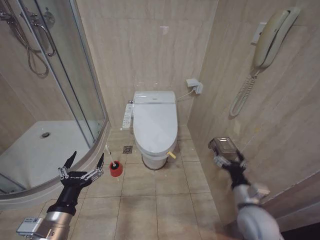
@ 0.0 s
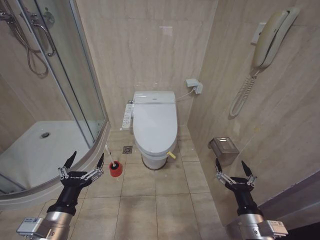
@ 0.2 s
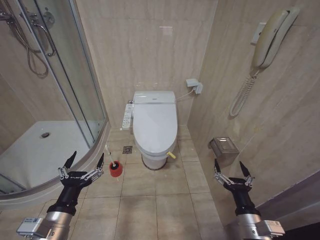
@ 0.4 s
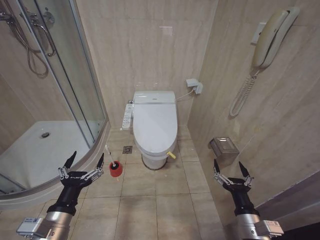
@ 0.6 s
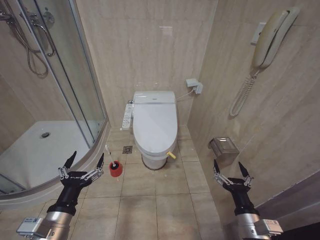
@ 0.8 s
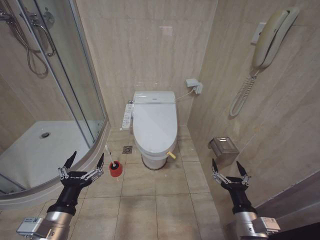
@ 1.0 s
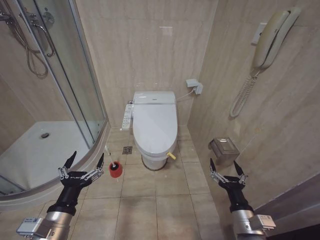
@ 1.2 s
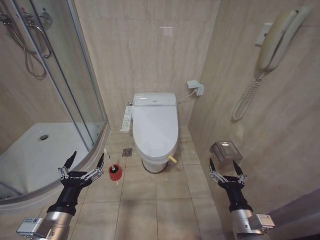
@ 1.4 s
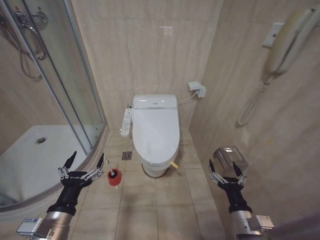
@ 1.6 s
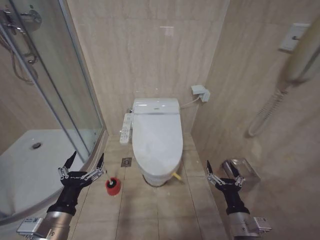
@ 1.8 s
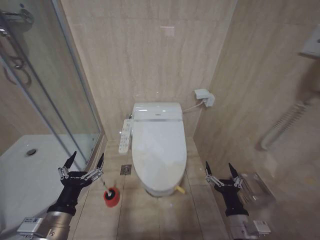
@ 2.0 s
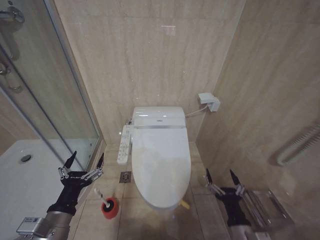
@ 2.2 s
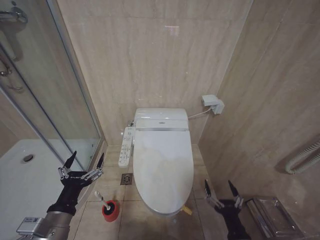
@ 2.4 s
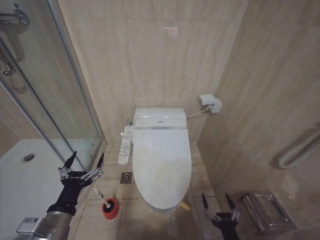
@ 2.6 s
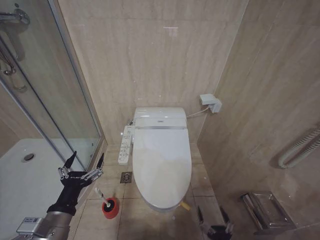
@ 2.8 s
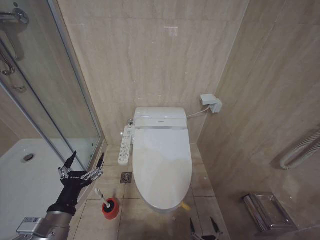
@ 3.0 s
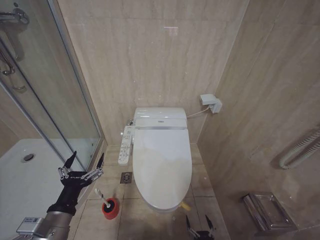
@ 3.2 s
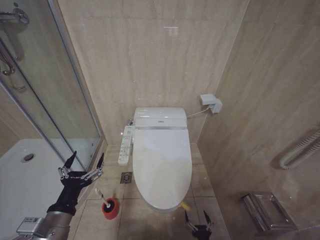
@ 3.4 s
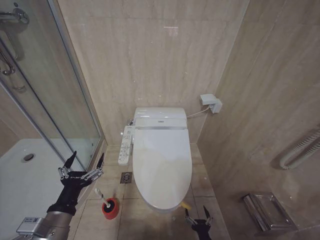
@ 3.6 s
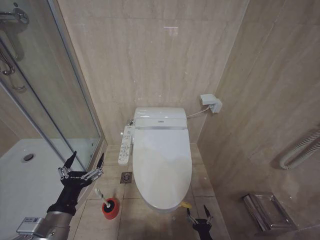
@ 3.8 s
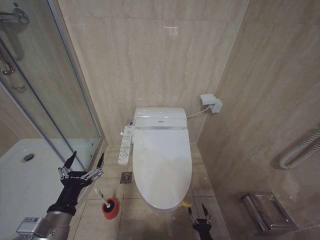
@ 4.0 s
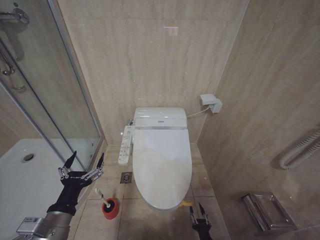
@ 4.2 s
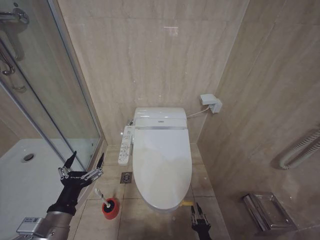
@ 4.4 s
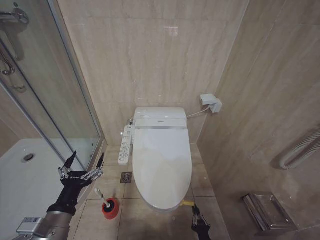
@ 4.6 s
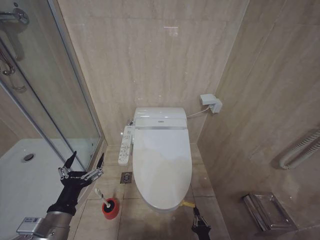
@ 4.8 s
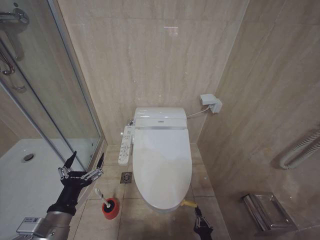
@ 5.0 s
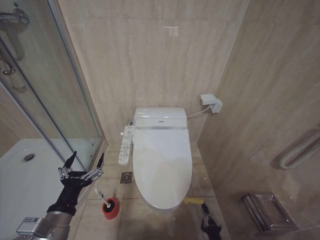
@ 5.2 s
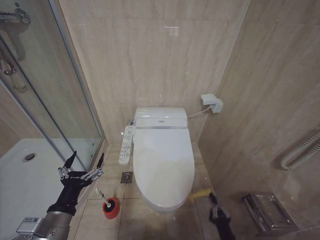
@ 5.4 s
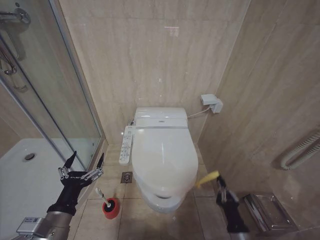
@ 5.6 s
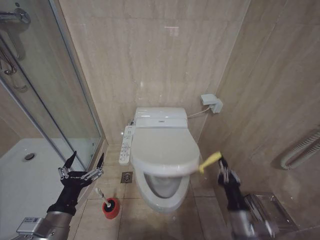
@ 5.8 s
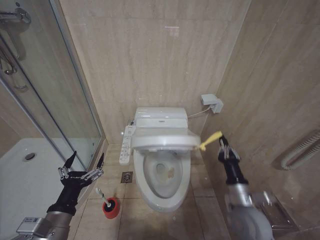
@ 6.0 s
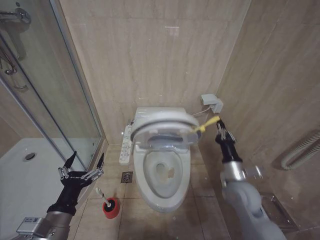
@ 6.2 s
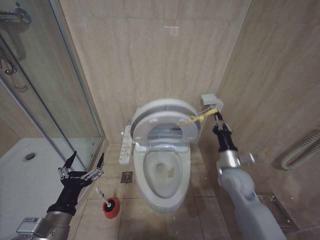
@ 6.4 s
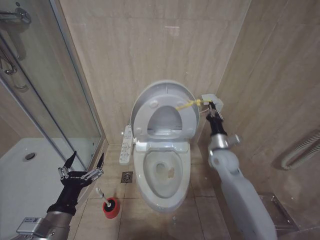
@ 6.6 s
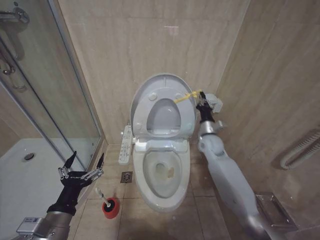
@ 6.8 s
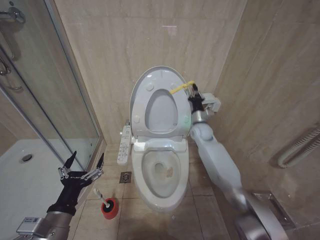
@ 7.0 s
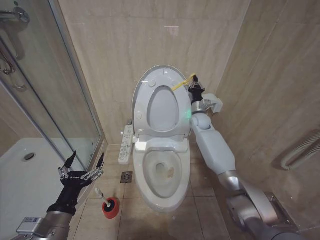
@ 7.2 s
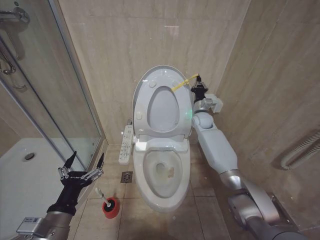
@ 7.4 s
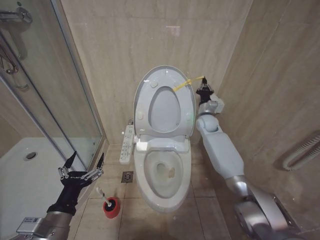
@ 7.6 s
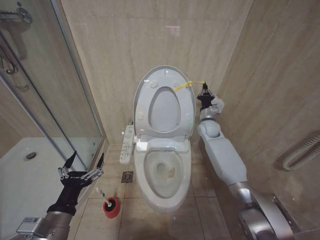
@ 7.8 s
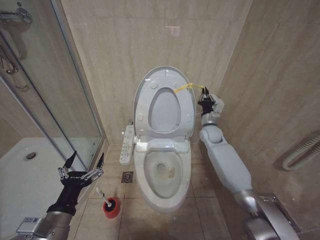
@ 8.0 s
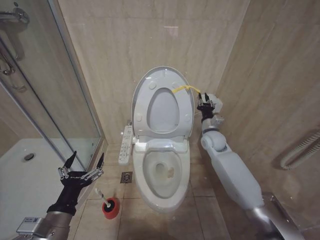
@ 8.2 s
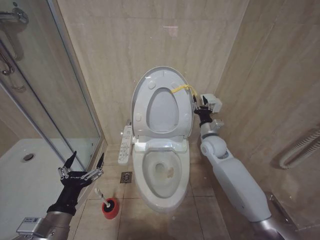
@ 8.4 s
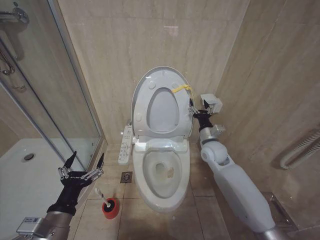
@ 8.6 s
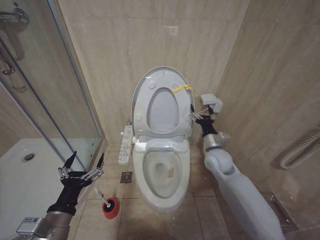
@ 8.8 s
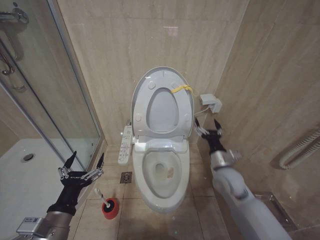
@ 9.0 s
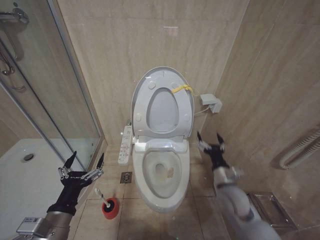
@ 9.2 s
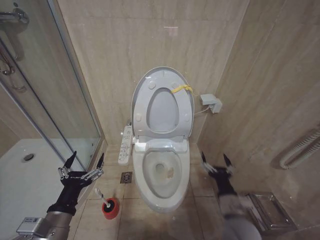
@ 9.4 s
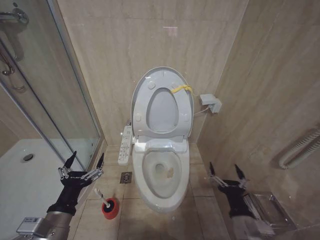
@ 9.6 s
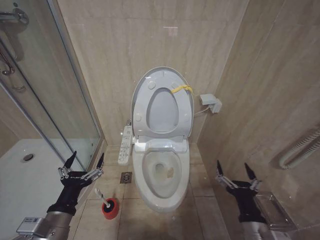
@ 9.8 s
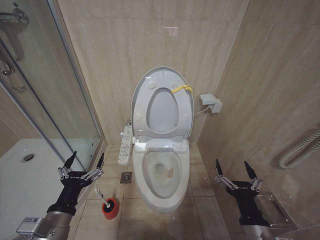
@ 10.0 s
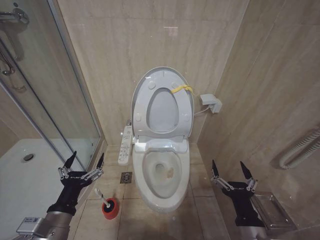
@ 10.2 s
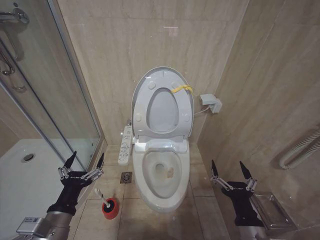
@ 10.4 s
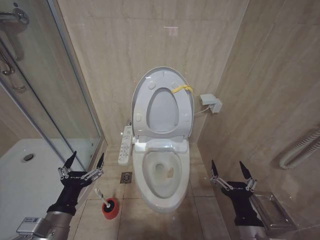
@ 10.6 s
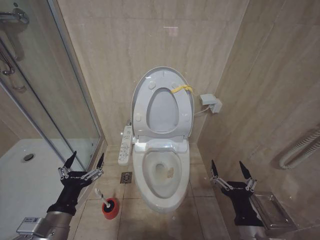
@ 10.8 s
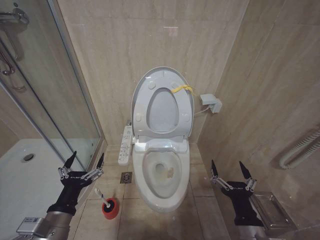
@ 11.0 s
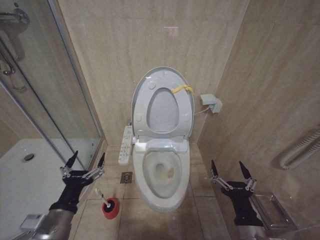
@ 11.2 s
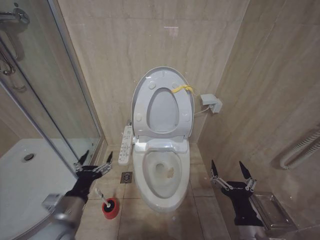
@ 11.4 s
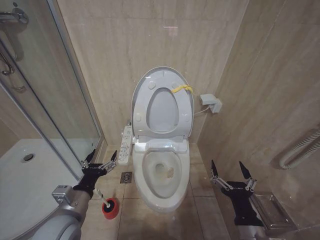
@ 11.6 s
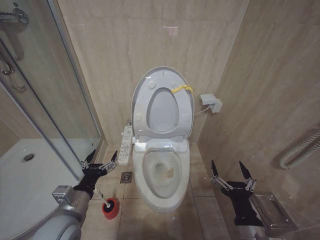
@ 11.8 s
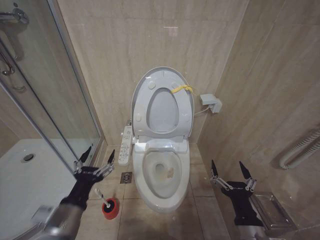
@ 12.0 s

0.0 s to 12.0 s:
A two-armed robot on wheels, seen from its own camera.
Task of the whole recording: Open the toilet lid, clean the toilet bowl with a toilet brush, close the toilet lid, and flush.
1.6 to 3.0 s: The right gripper is displaced downward and backward by some 20 cm.
4.4 to 6.0 s: The right gripper shifts approximately 25 cm upward, and closes its fingers.
6.0 to 7.6 s: The right gripper goes roughly 35 cm forward.
7.6 to 9.0 s: The right gripper moves backward, approximately 20 cm, and opens.
9.0 to 10.4 s: The right gripper heads backward, covering roughly 25 cm.
10.4 to 12.0 s: The grippers make only small movements.

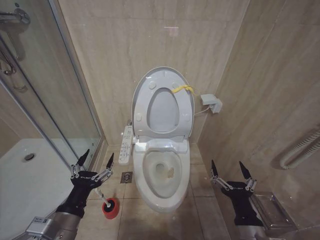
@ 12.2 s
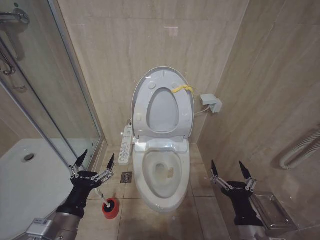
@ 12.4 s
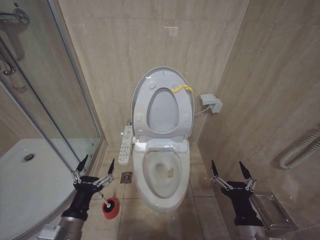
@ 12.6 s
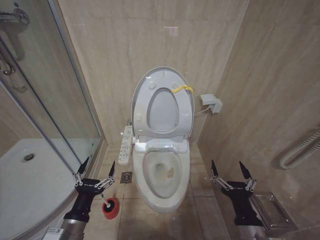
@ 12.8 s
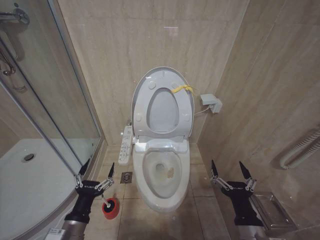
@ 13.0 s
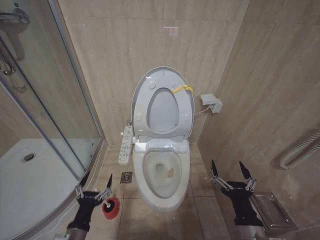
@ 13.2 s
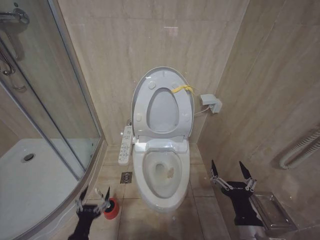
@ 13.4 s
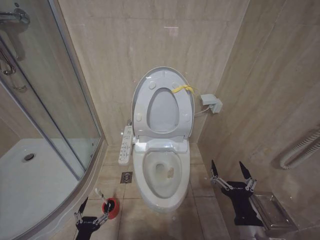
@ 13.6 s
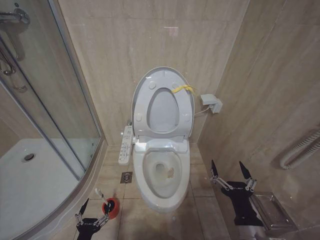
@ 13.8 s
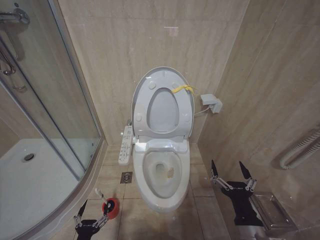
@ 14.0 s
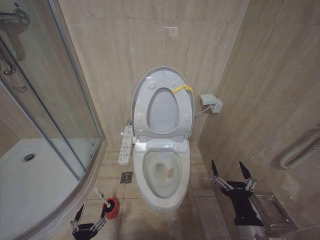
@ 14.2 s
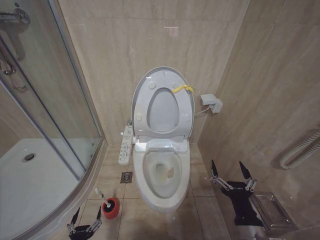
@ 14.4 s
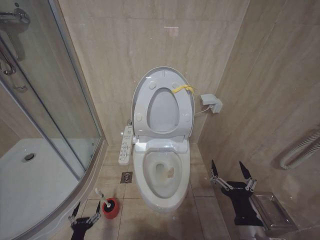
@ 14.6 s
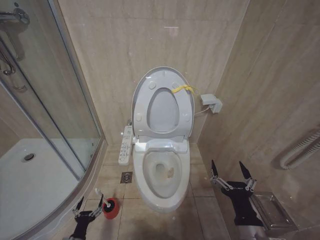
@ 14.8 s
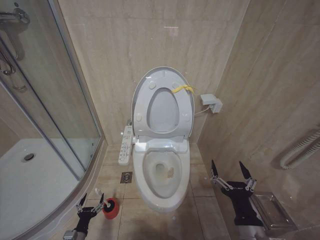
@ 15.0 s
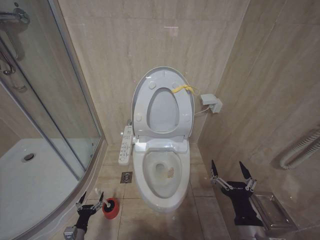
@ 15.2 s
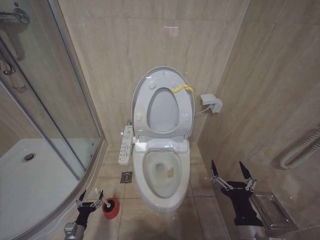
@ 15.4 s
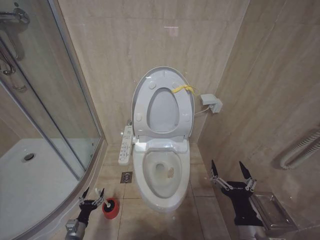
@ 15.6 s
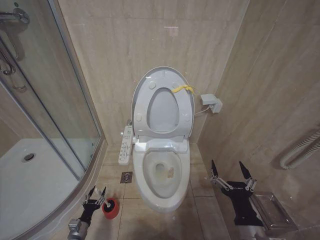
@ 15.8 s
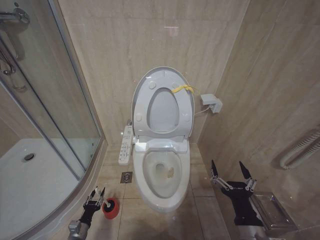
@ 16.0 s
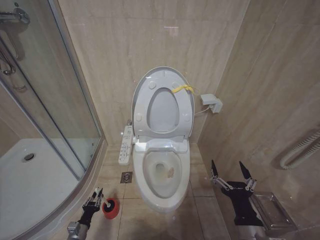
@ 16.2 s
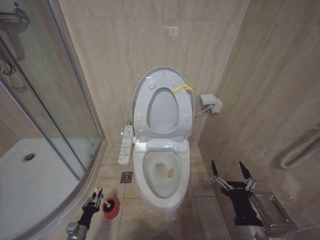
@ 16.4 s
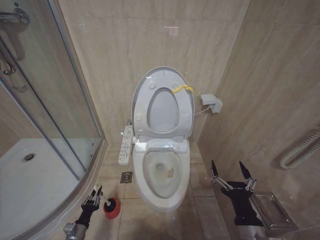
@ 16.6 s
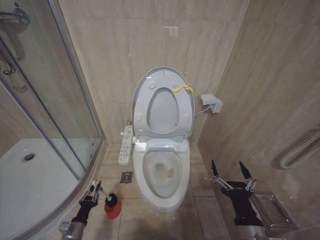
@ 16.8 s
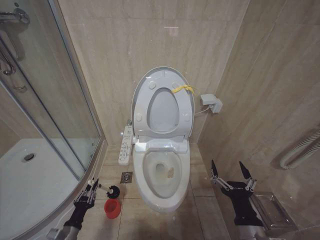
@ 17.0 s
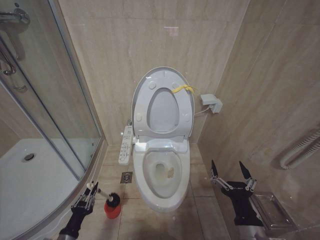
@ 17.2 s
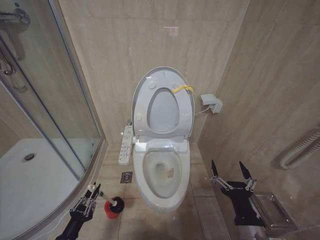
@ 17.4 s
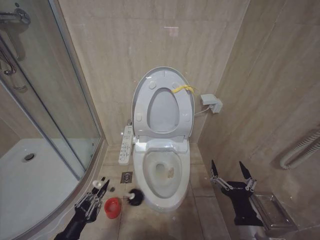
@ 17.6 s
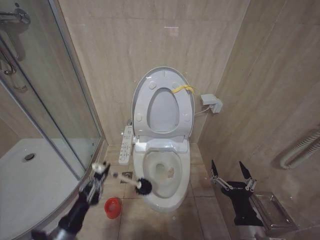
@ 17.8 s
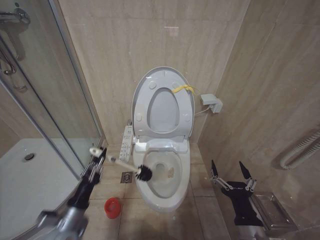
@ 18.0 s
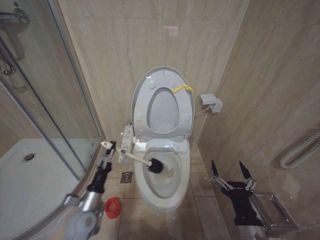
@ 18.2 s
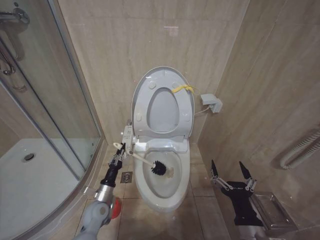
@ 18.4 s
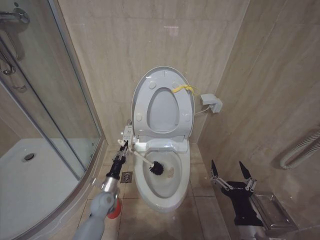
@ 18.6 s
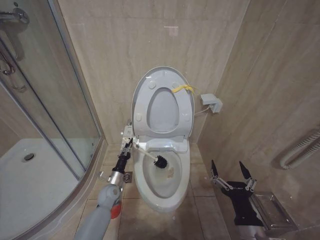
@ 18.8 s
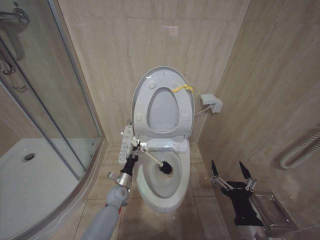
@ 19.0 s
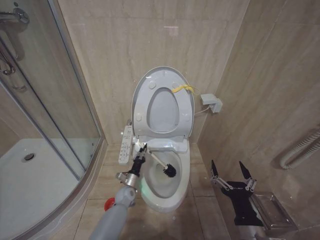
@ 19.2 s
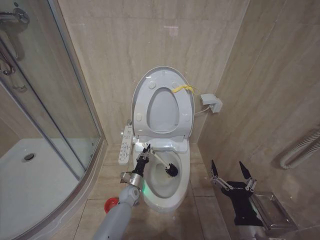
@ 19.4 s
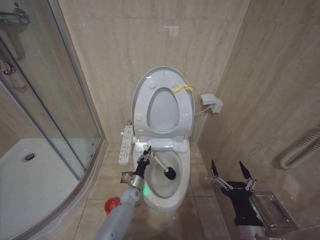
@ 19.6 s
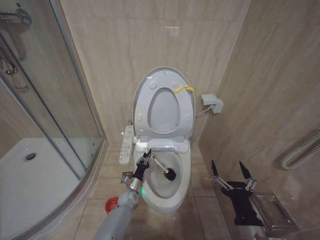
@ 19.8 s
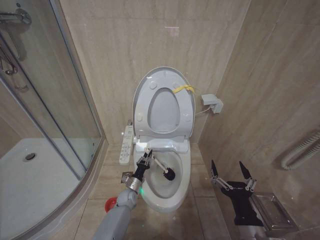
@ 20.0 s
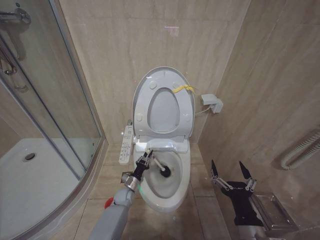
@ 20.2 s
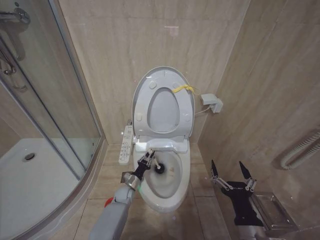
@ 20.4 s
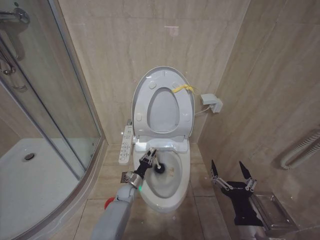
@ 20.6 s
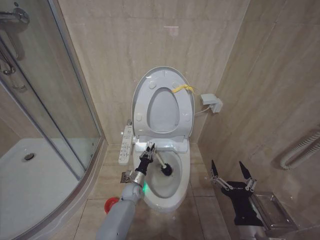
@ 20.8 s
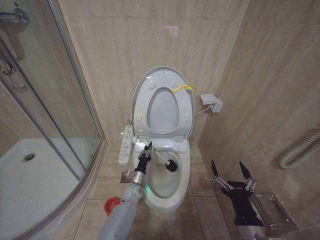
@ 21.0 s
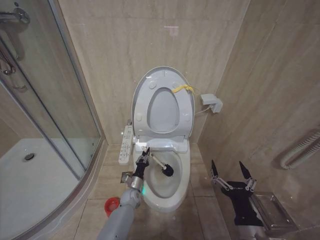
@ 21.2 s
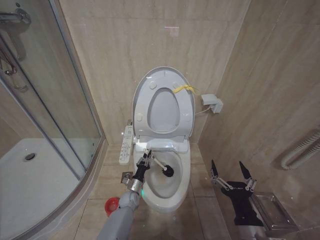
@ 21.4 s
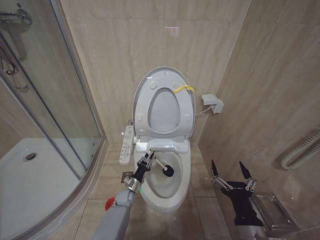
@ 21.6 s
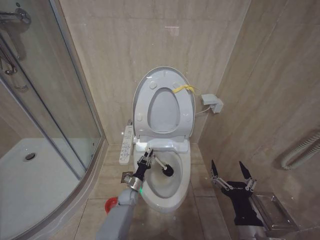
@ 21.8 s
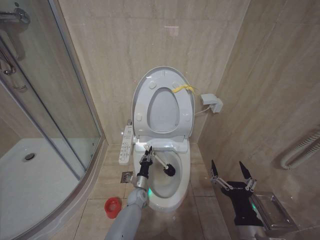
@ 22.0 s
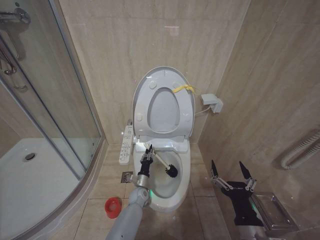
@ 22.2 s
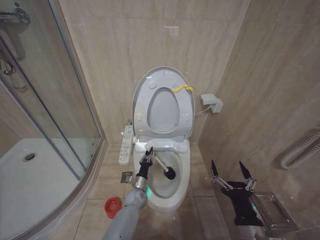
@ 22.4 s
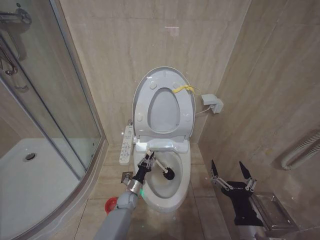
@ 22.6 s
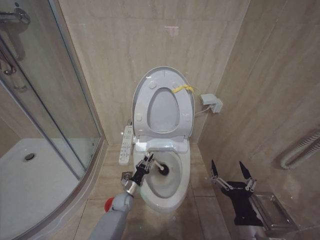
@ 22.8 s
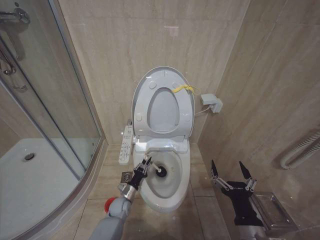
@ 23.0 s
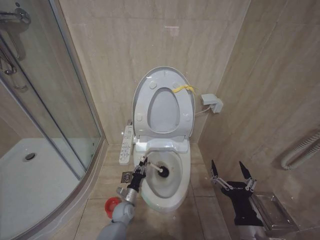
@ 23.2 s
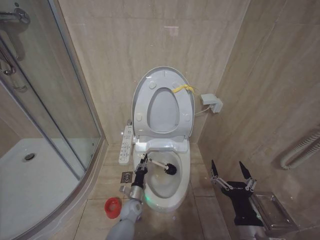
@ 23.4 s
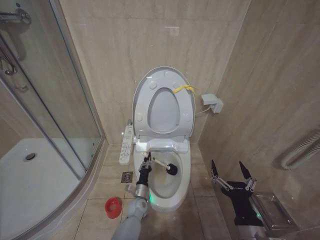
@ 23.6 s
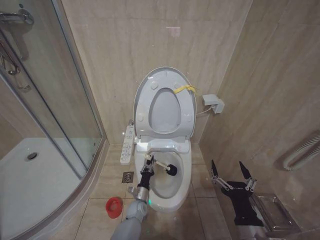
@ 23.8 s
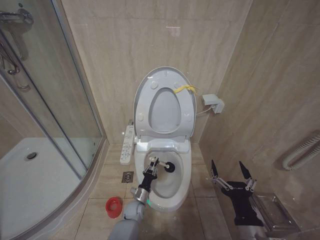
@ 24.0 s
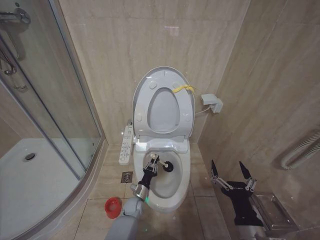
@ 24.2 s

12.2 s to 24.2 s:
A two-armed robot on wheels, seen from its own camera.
Task of the whole recording: Open the toilet lid, clean the toilet bowl with a toilet brush, close the toilet lid, and flush.
12.2 to 13.8 s: The left gripper is displaced downward by approximately 25 cm.
13.8 to 15.2 s: The left gripper moves downward, forward and to the left, roughly 15 cm.
15.2 to 16.6 s: The left gripper closes.
16.6 to 18.2 s: The left gripper moves upward and to the right, about 25 cm.
18.2 to 19.8 s: The left gripper heads downward, forward and to the right, covering about 25 cm.
22.6 to 24.2 s: The left gripper travels to the right and back again, roughly 5 cm each way.
